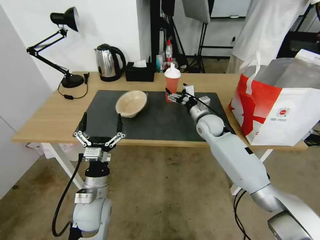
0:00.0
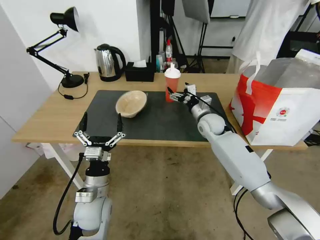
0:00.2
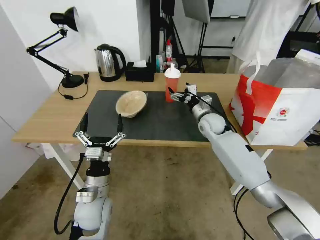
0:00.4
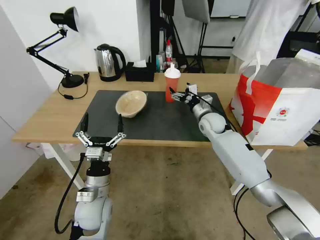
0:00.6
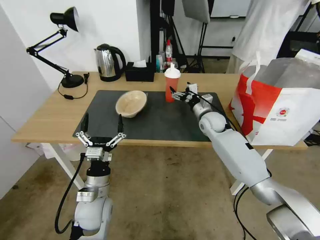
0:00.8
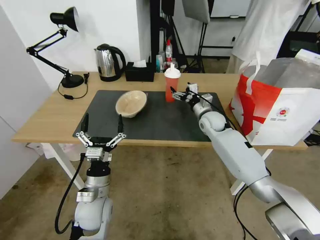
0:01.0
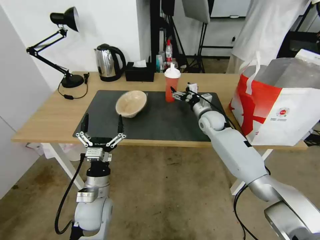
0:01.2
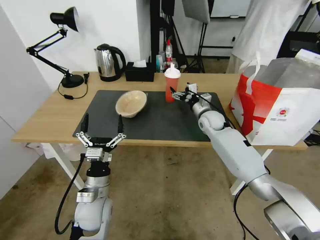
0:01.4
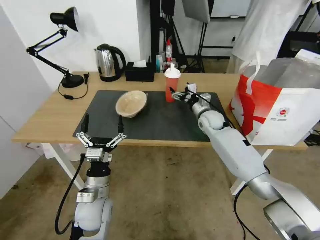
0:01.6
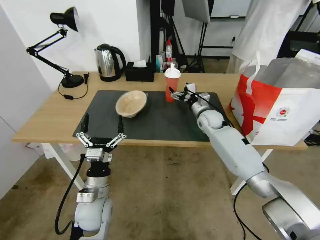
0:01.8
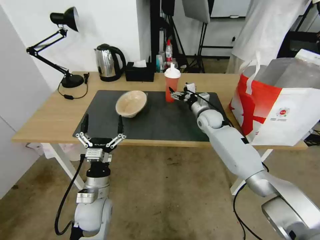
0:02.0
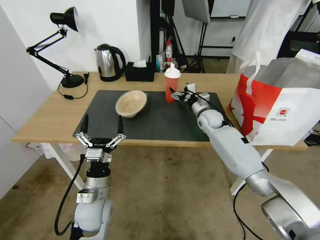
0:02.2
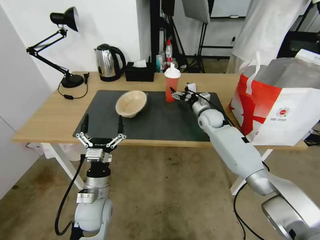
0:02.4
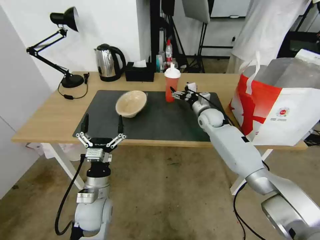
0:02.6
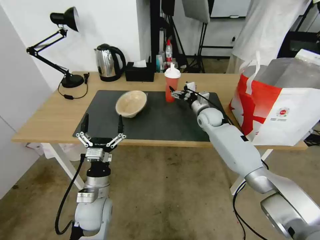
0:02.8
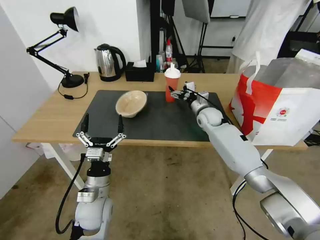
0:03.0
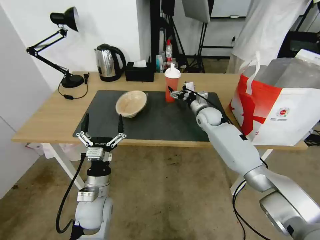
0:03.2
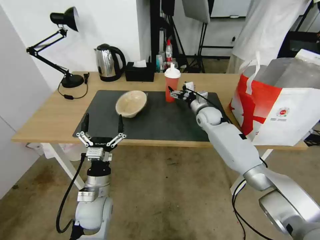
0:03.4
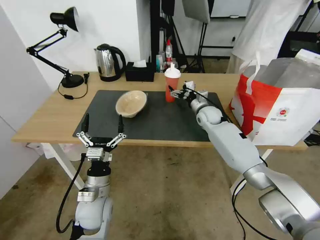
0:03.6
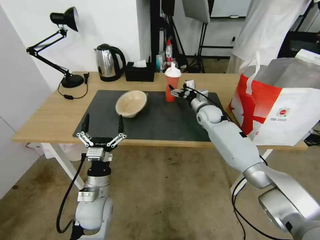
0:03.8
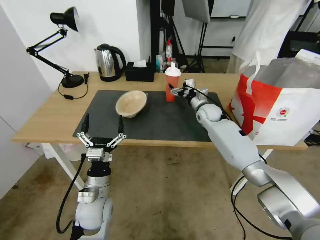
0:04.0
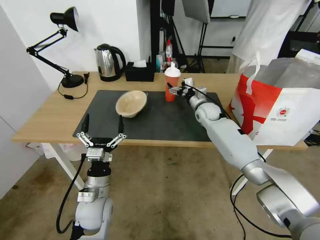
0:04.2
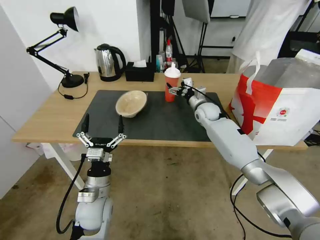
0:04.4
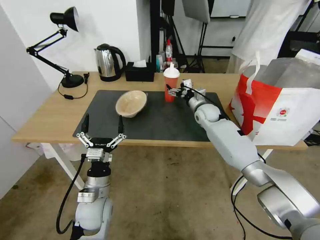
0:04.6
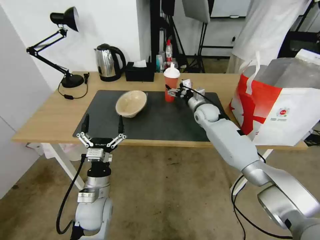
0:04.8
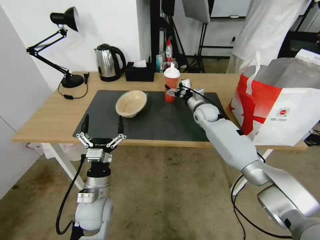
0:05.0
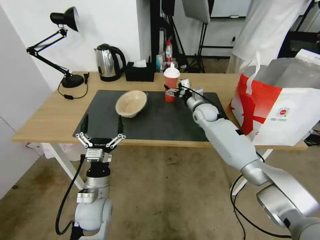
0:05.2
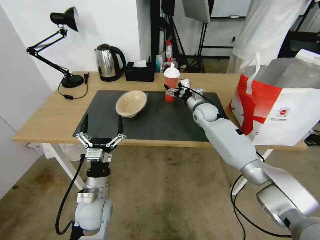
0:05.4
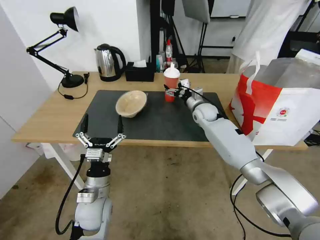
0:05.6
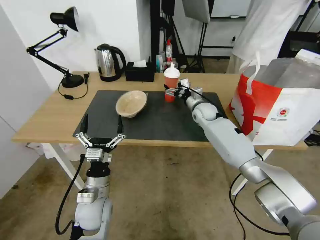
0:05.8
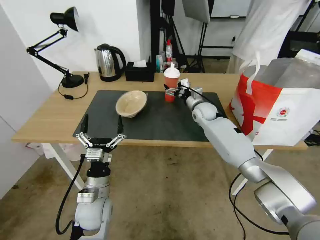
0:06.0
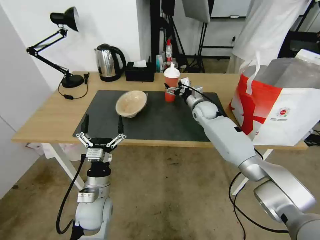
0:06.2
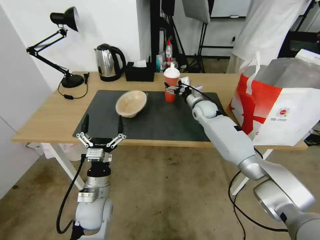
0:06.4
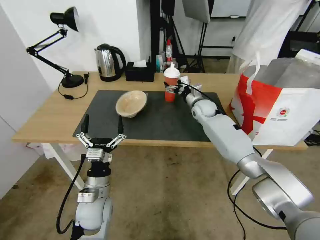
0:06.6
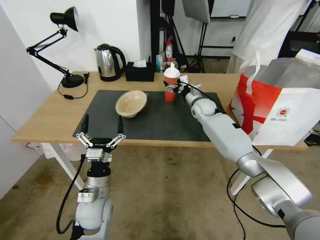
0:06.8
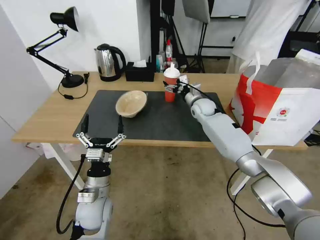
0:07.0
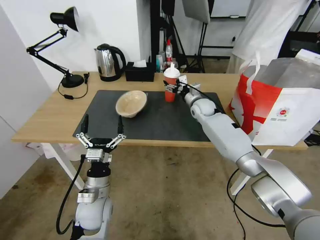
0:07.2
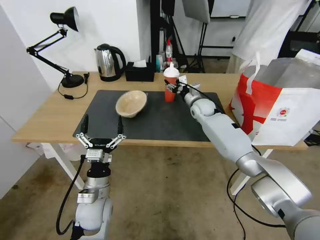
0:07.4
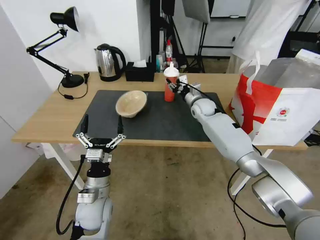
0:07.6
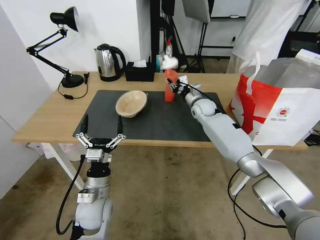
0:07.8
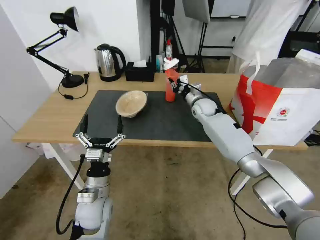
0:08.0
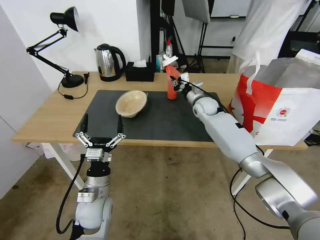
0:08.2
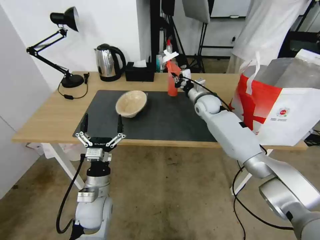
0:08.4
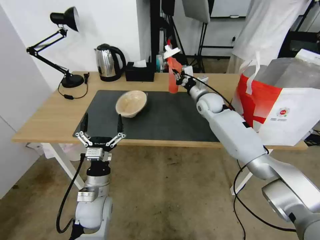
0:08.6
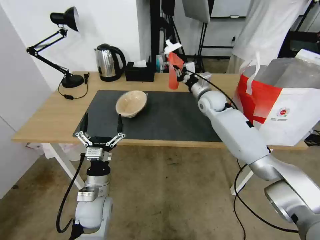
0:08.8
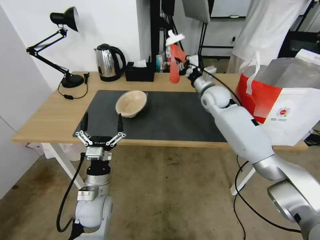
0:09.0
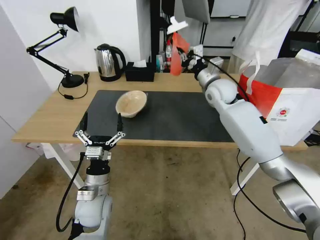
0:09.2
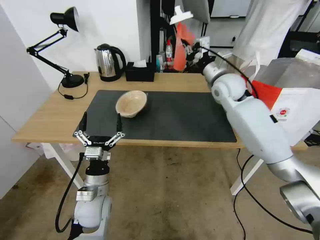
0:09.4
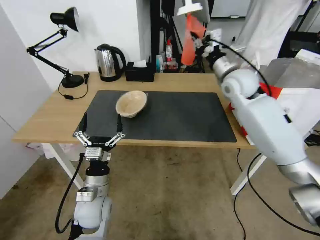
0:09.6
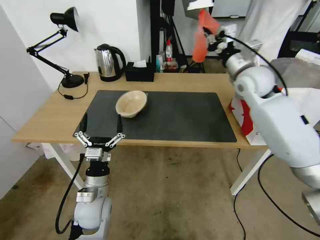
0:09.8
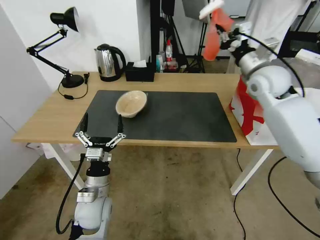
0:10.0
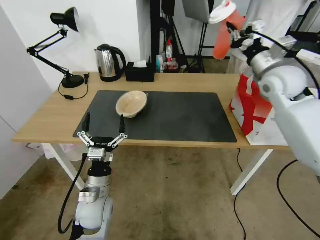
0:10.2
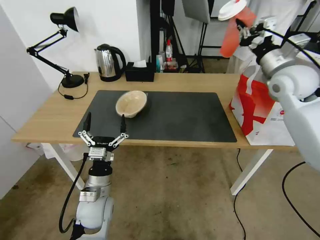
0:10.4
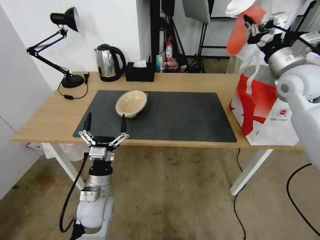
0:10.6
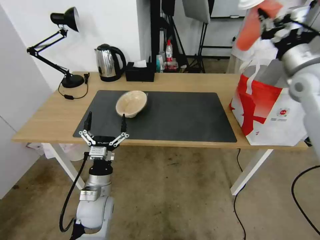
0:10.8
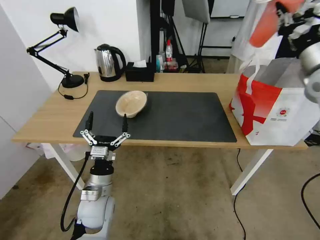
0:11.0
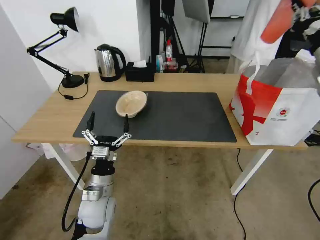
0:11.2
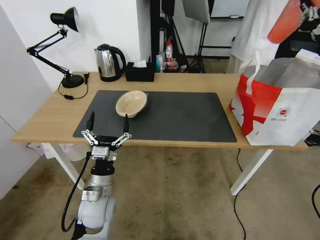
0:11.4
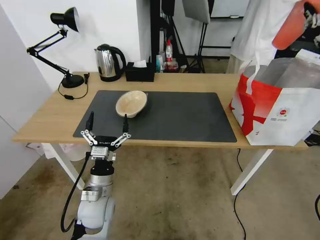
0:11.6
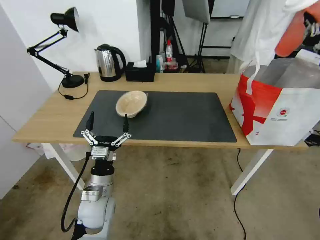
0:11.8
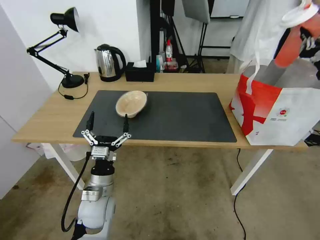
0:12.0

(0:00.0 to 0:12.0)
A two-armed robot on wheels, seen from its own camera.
Task of the whole recording: Pick up the trash from the table and place it into the takeout bag.
0:00.0 - 0:03.0: The grippers stay close to where they were, moving slightly.
0:03.0 - 0:04.4: There are only small adjustments of the grippers.
0:04.4 - 0:06.0: Neither gripper changes place.
0:06.0 - 0:07.6: The right gripper closes up.
0:07.6 - 0:09.0: The right gripper moves upward, approximately 10 cm, and closes its fingers.
0:09.0 - 0:10.4: The right gripper moves to the right, upward and backward, some 20 cm.
0:10.4 - 0:12.0: The right gripper goes roughly 15 cm to the right and backward.

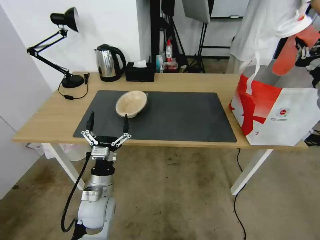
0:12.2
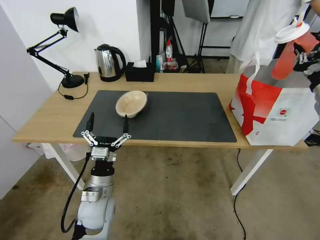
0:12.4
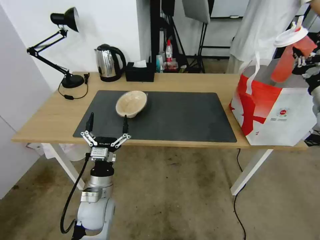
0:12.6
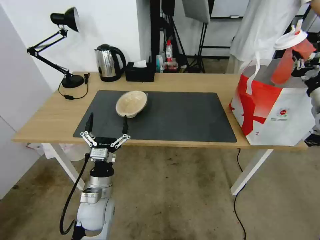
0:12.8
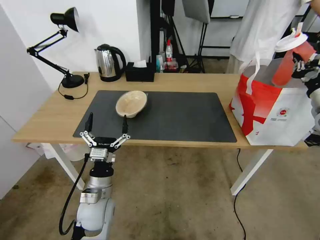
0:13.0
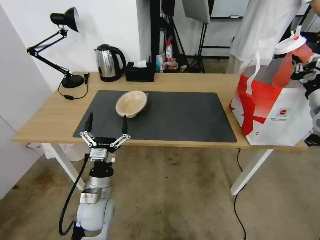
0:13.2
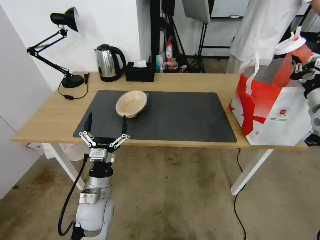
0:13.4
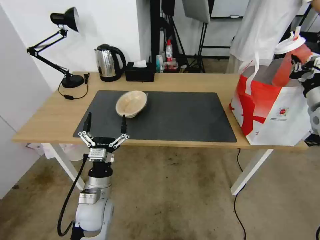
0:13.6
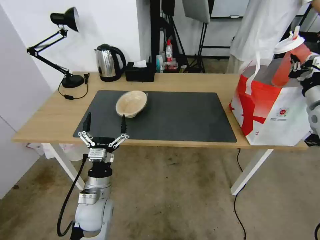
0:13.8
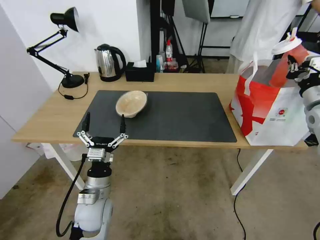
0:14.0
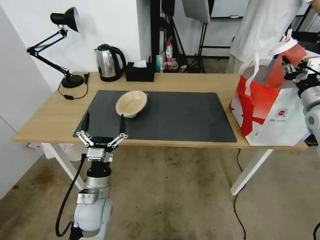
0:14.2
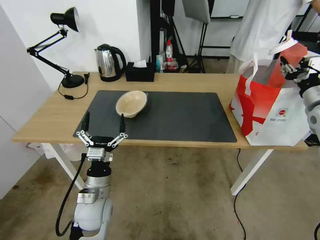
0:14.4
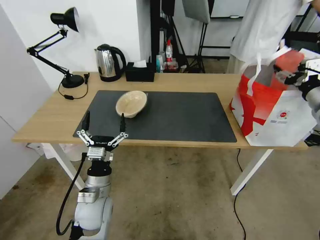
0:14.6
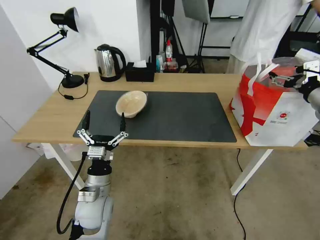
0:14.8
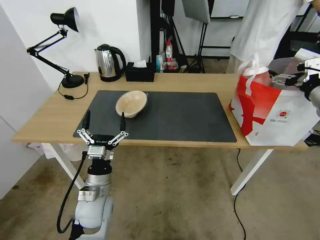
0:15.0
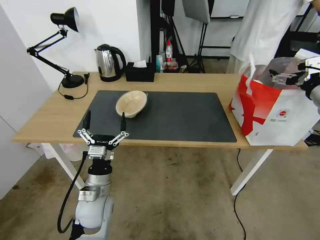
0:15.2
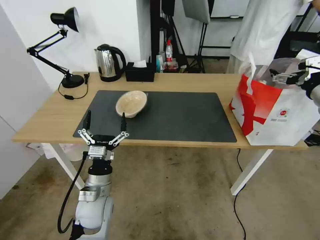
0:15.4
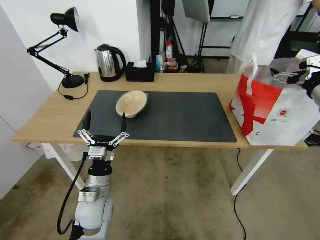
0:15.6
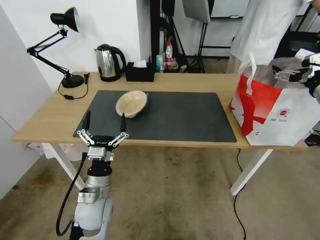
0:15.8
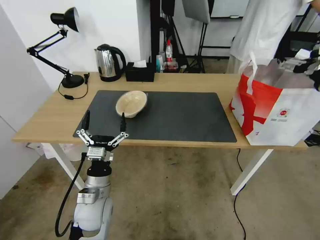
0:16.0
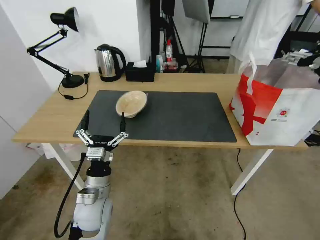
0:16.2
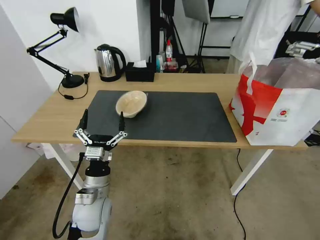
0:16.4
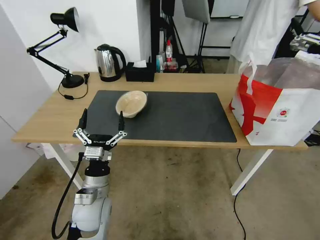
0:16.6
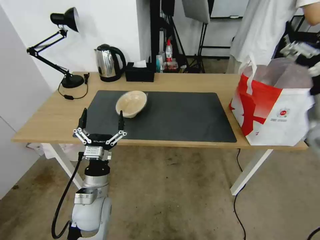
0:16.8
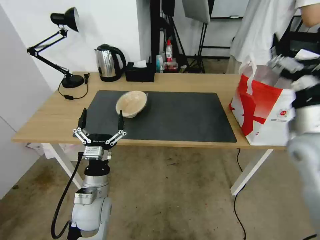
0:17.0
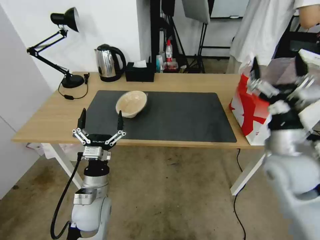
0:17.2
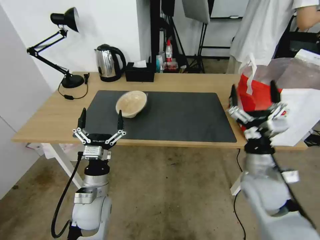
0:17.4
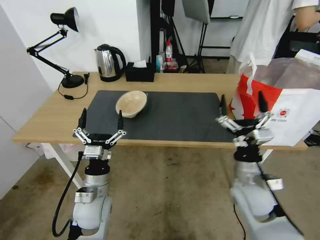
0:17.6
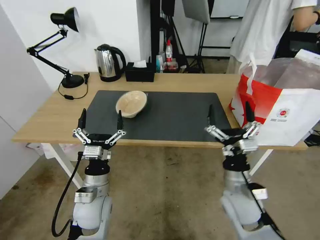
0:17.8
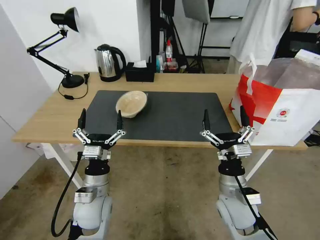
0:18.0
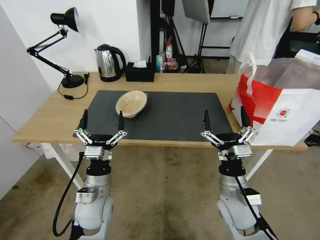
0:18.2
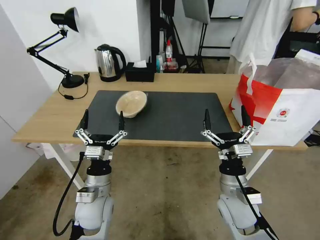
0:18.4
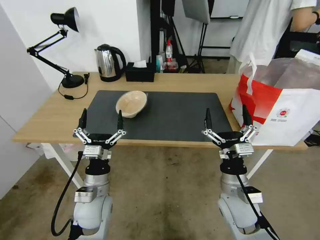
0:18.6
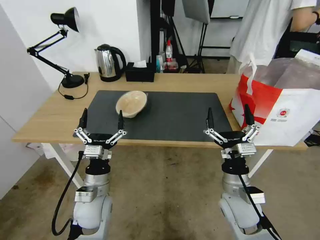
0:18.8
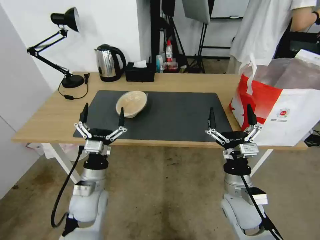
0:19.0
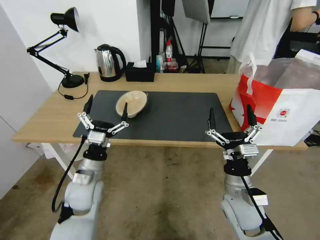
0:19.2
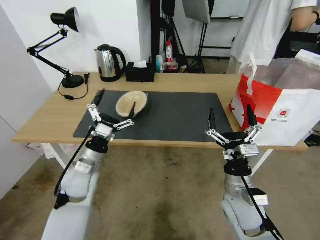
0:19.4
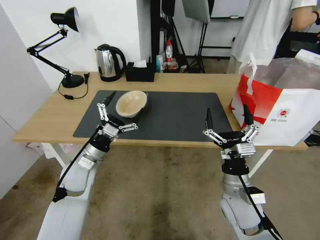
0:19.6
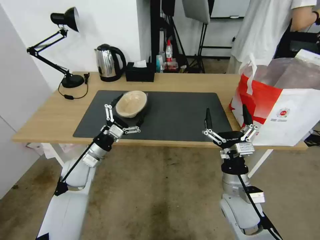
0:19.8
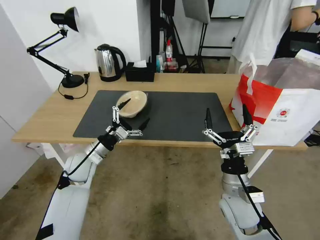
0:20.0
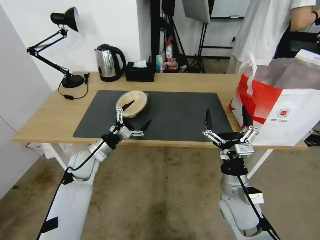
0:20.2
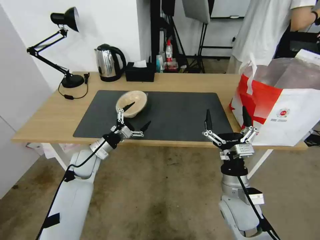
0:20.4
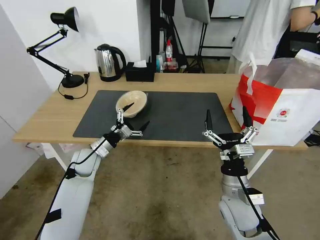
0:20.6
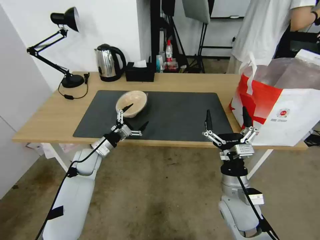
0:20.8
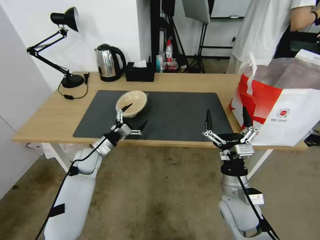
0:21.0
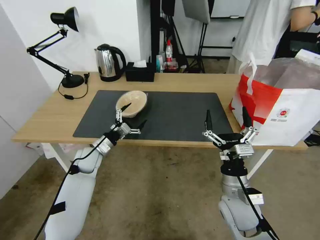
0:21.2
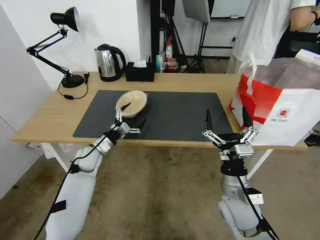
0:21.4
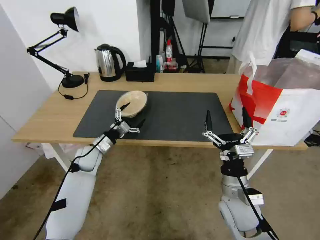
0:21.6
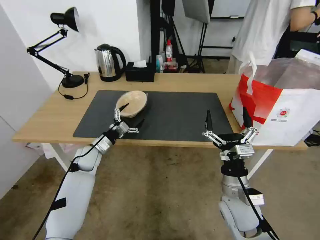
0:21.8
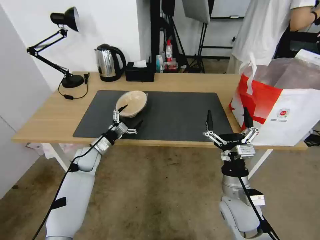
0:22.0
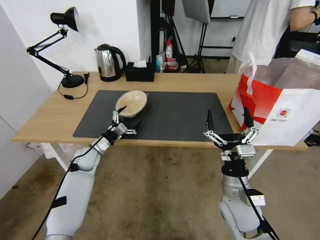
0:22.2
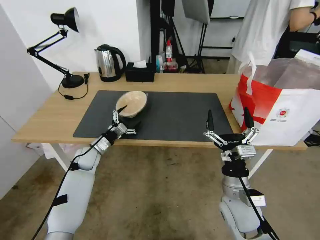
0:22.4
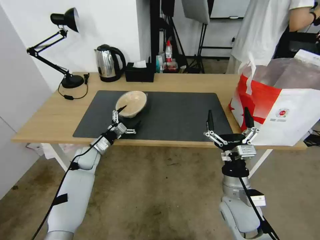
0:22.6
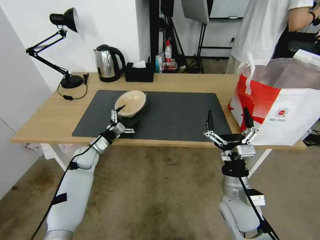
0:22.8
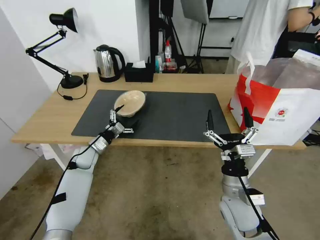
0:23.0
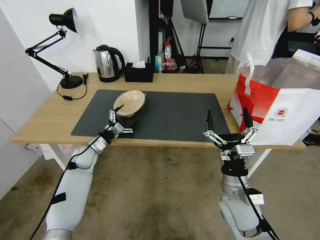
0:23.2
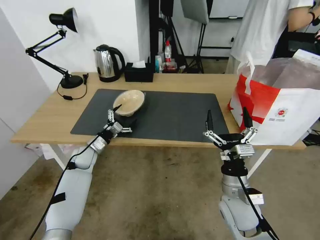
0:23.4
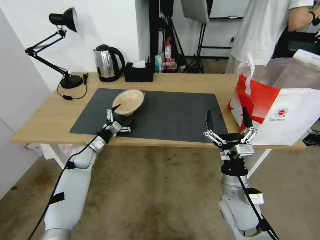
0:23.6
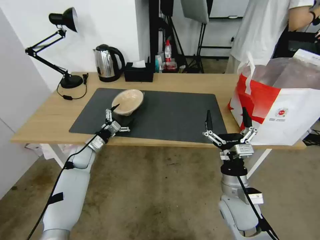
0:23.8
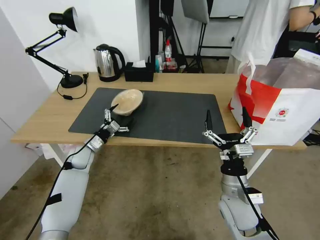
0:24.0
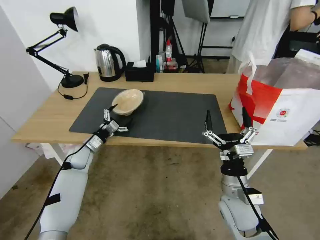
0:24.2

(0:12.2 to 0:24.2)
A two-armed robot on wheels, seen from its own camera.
Task of the whole recording: Pick up the trash from the table and place it into the takeout bag.
0:12.2 - 0:13.8: The right gripper ends up approximately 5 cm from where it was.
0:13.8 - 0:15.2: The right gripper shifts by about 5 cm, and opens.
0:15.2 - 0:16.6: The right gripper is displaced backward by some 5 cm.
0:16.6 - 0:18.2: The right gripper moves downward and to the left, approximately 35 cm.
0:18.2 - 0:19.8: The left gripper heads forward and to the left, covering roughly 15 cm.
0:19.8 - 0:21.2: The left gripper travels forward and downward by some 10 cm.
0:21.2 - 0:24.2: The grippers move only a little.
